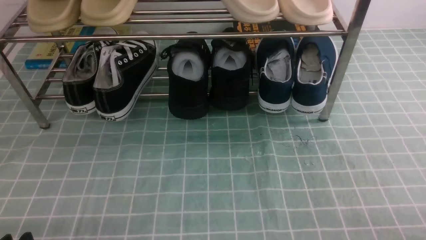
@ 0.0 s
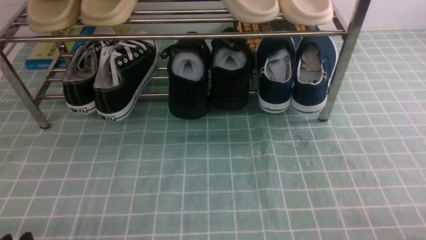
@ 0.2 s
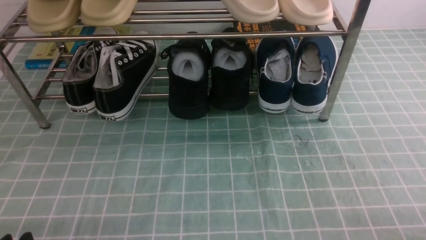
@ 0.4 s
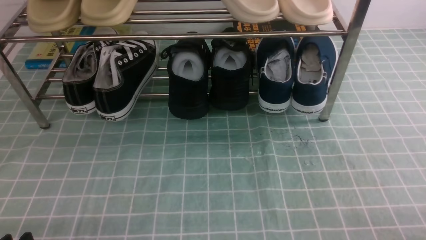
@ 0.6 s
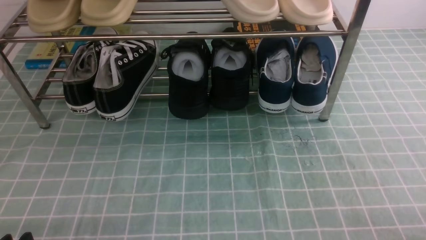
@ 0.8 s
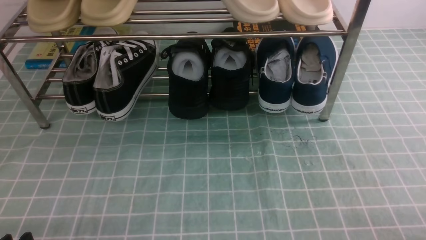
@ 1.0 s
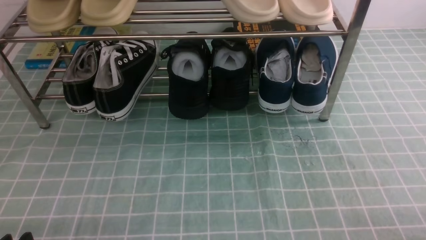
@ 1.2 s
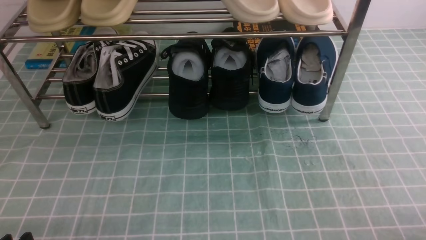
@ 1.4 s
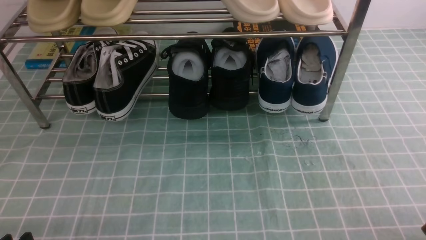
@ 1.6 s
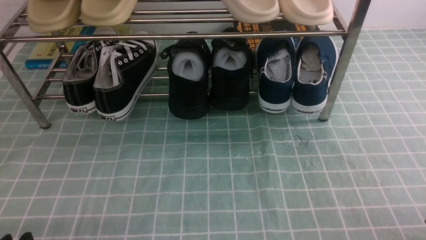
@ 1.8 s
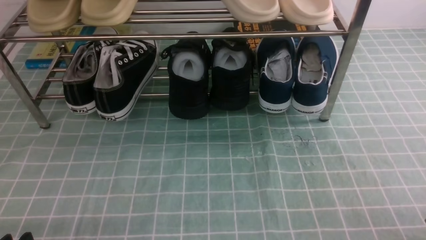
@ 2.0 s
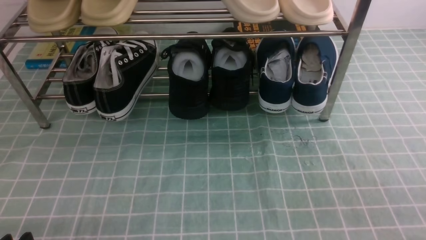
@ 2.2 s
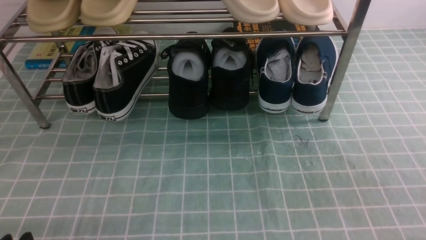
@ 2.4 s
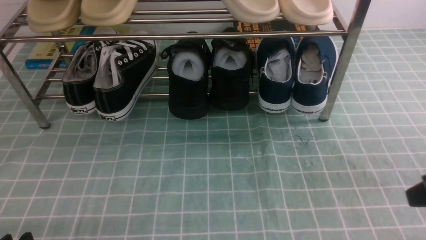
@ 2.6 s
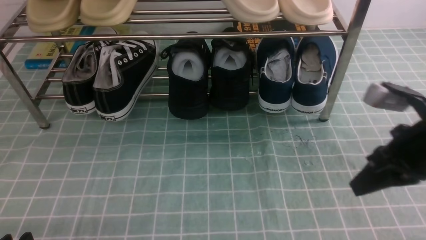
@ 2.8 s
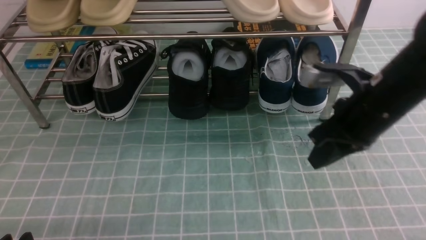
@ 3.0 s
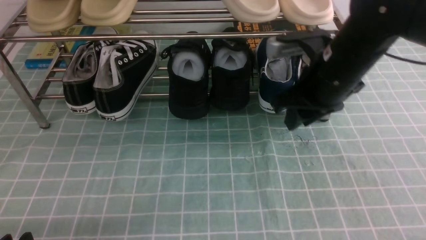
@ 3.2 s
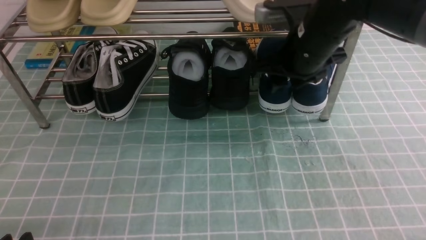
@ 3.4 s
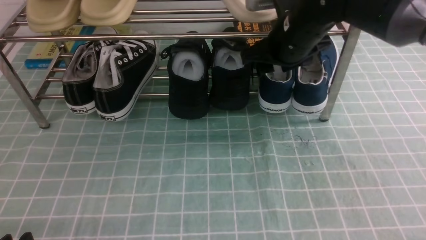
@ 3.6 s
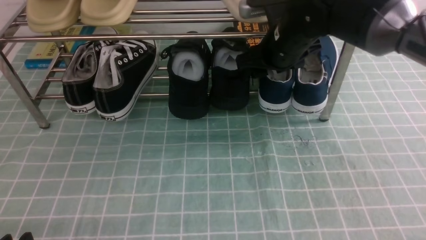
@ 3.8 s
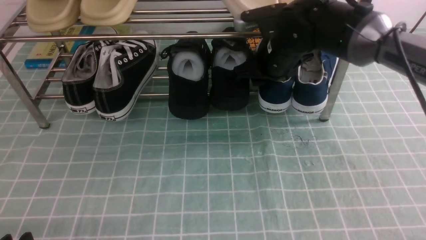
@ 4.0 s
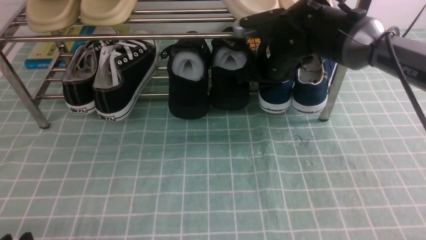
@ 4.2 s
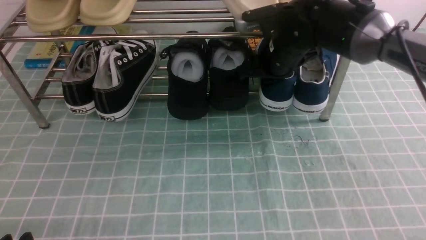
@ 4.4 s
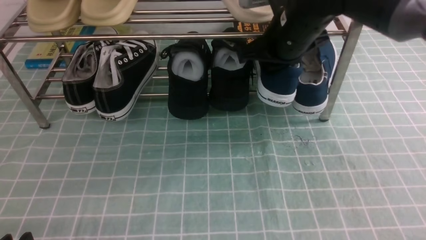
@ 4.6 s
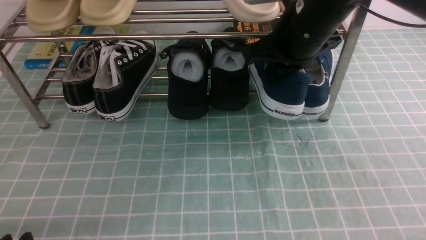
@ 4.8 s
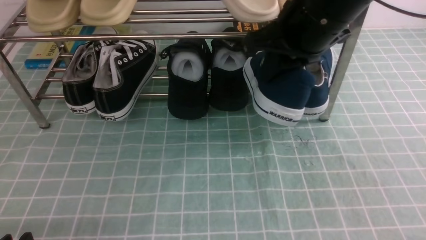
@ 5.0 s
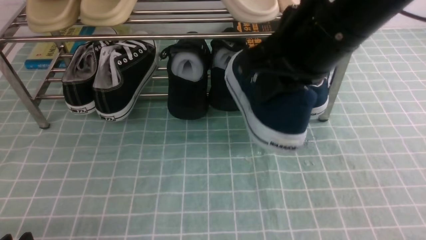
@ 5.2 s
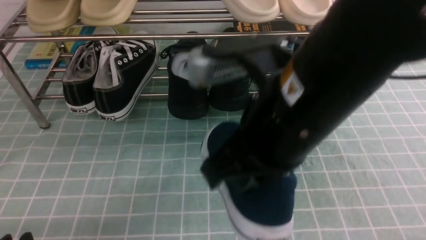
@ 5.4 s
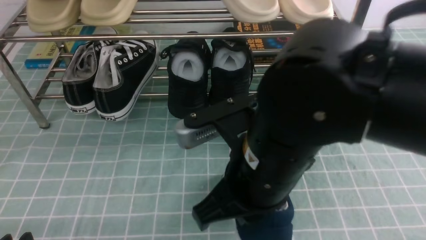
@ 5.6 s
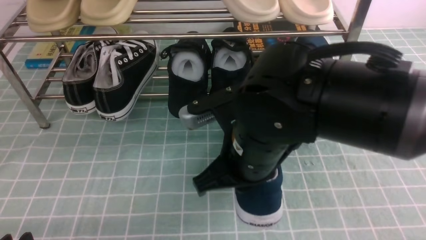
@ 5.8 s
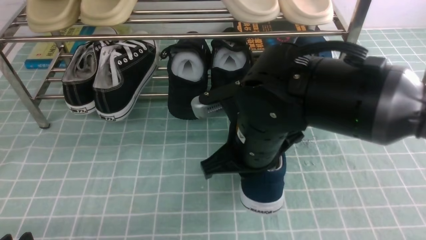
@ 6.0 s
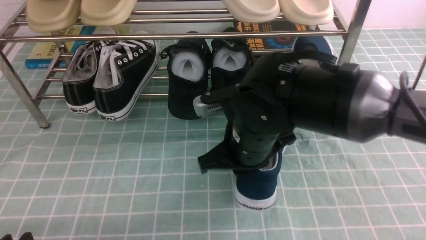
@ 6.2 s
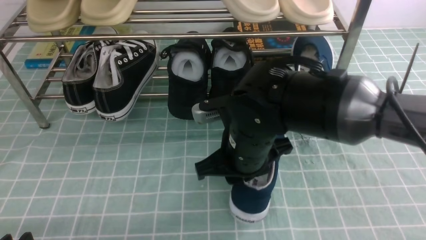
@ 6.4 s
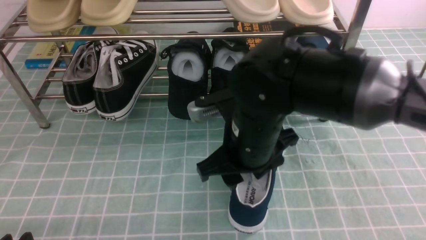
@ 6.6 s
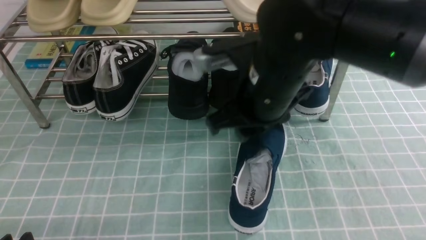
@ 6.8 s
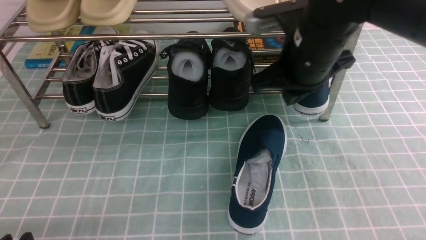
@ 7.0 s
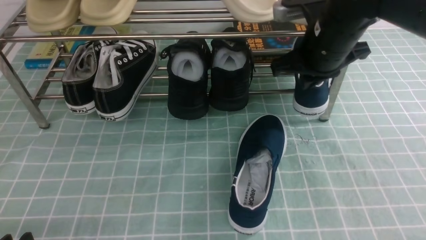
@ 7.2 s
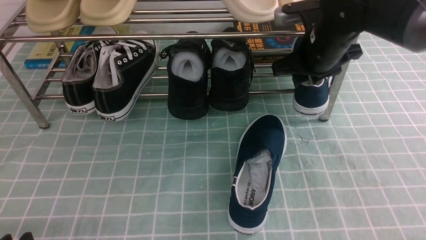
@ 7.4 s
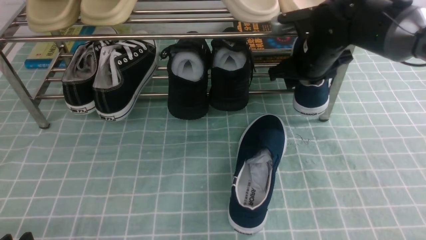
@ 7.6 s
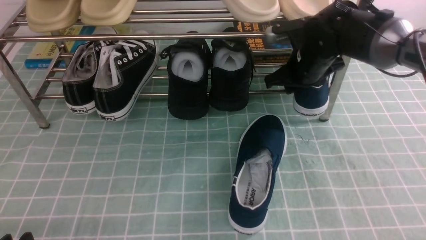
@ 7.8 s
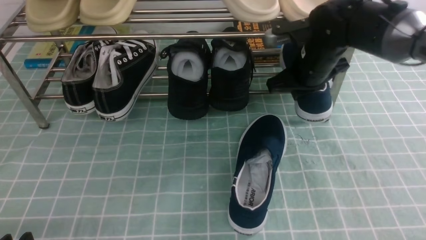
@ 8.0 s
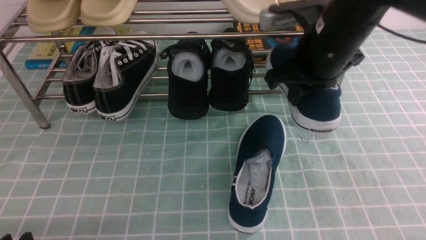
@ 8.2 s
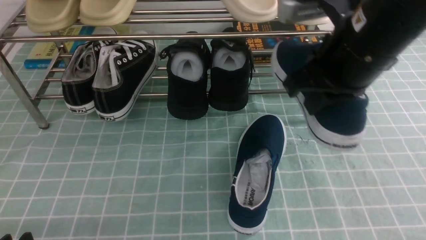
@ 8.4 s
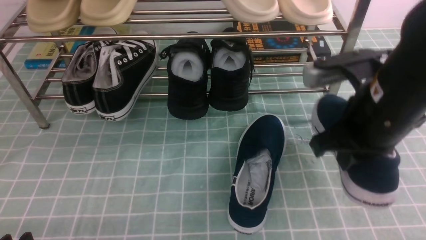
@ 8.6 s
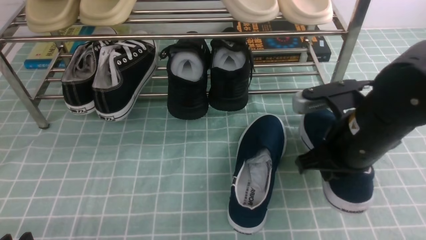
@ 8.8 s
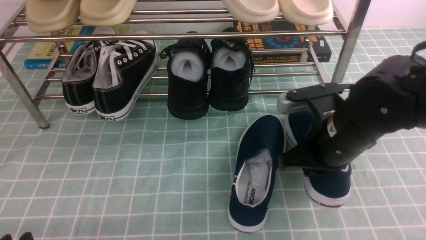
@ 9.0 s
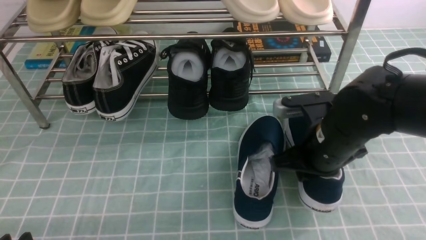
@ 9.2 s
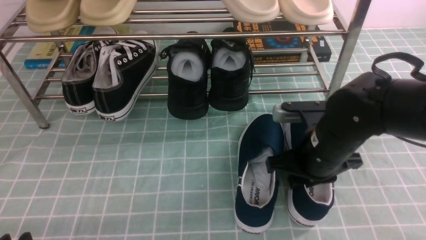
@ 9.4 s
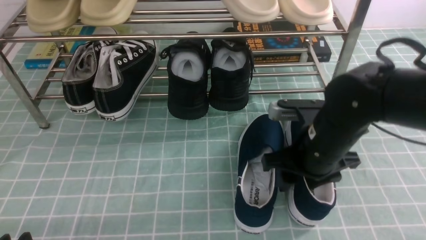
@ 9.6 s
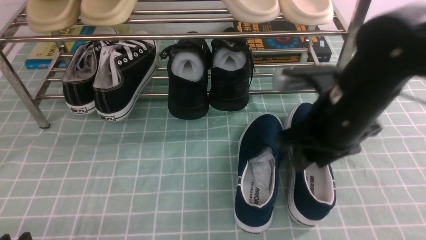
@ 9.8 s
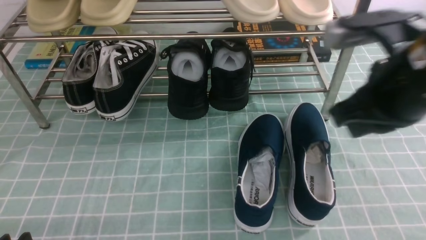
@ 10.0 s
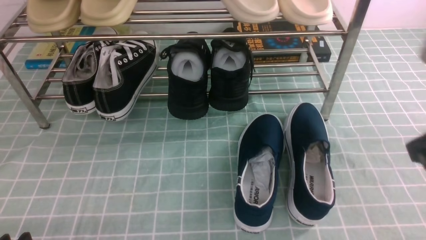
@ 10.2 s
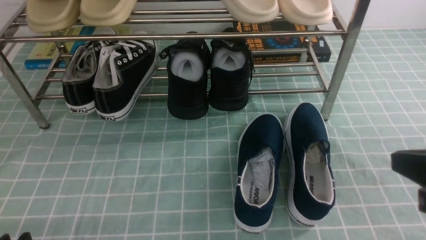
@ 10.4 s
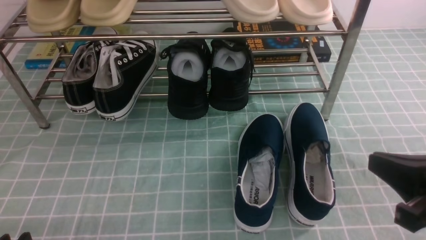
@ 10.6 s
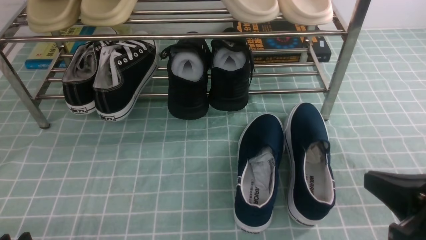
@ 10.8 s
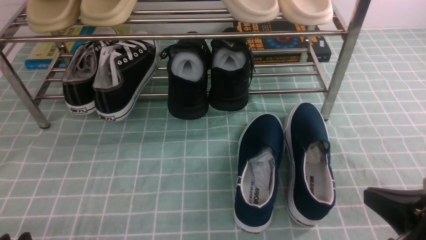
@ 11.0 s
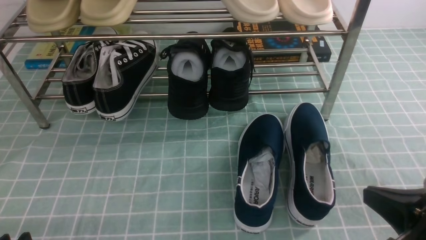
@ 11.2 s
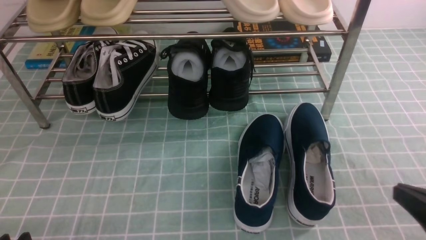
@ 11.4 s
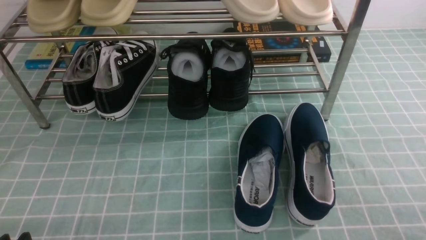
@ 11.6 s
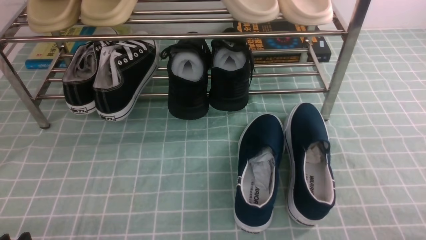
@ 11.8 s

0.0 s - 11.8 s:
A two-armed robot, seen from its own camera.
Step, 0.0 s - 4.2 s: use the right arm to clamp a shoe on the right side of the shoe rack.
Step, 4.4 s - 6.6 s: use the right arm to take out the clamped shoe from the shoe rack and put it down.
Step, 6.8 s - 7.8 s: use the right arm to clamp a shoe on the right side of the shoe rack.
Step, 8.0 s - 9.6 s: use the right arm to take out the clamped shoe from the shoe rack and put it down.
1.4 s - 3.0 s: The right gripper shifts roughly 30 cm forward, to the left and upward, and closes and opens again.
3.0 s - 4.4 s: The right gripper heads forward and to the left, covering roughly 15 cm, and opens, then closes once more.
4.4 s - 6.0 s: The right gripper is displaced backward and to the left by roughly 15 cm.
6.0 s - 7.4 s: The right gripper is displaced forward and to the right by some 20 cm, and opens.
7.4 s - 8.8 s: The right gripper heads backward, covering about 15 cm, and closes its fingers.
8.8 s - 10.4 s: The right gripper goes up and down, approximately 15 cm each way, reversing 2 times, and opens, then closes once more.
10.4 s - 11.8 s: The right gripper heads downward, to the right and backward, covering about 15 cm.

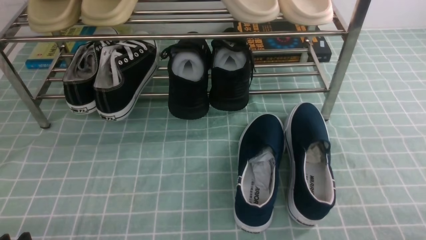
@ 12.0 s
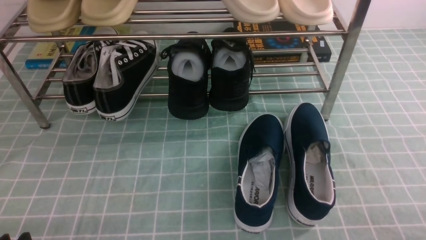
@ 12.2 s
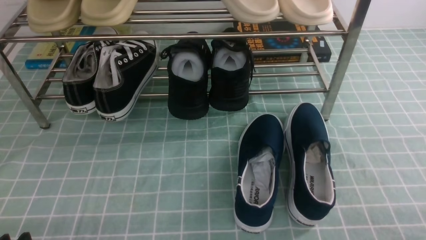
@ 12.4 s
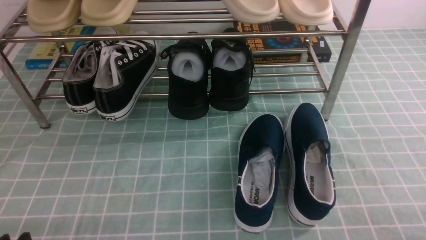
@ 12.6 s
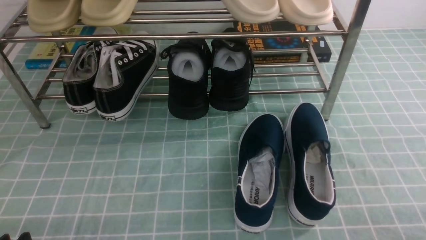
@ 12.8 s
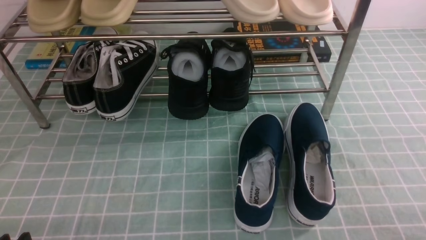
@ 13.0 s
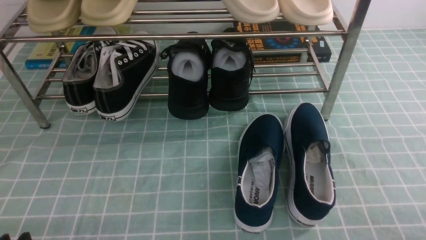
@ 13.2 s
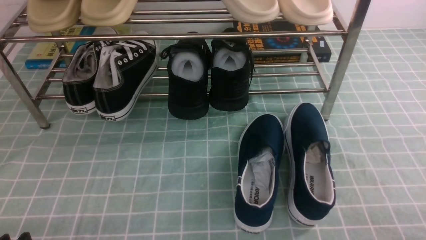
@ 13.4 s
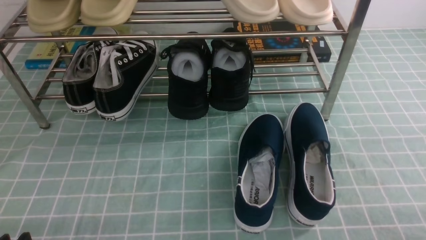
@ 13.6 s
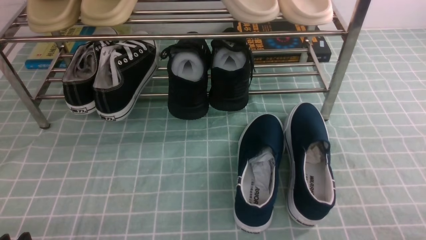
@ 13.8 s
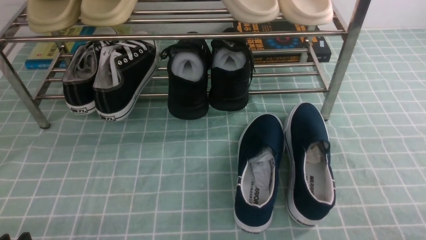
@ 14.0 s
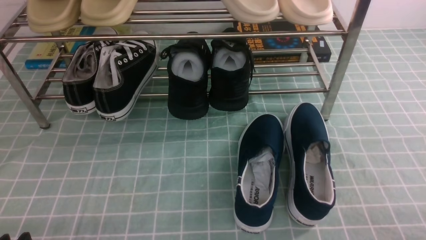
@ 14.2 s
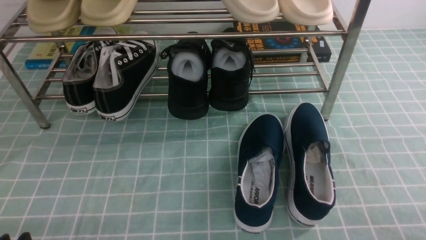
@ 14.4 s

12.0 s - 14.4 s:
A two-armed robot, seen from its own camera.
12.0 s - 14.4 s: Neither gripper changes place.

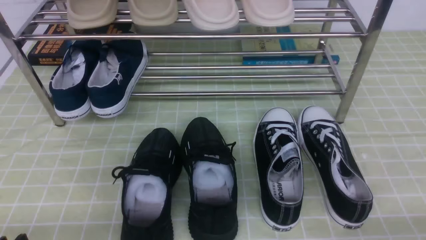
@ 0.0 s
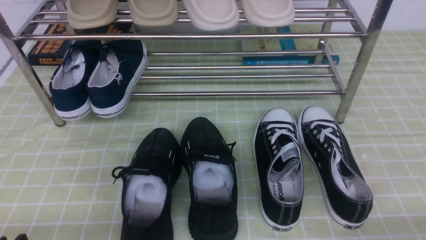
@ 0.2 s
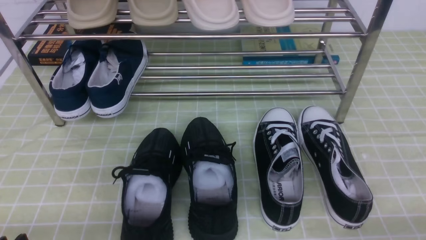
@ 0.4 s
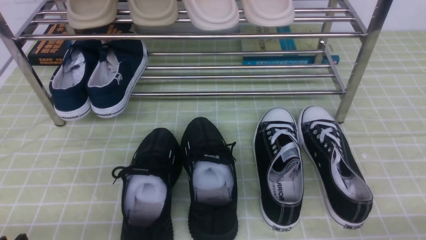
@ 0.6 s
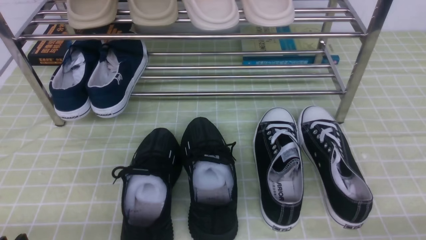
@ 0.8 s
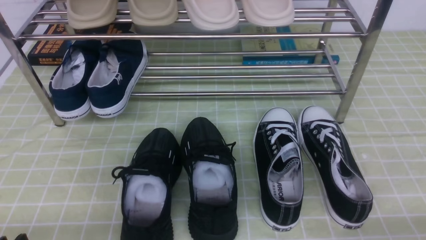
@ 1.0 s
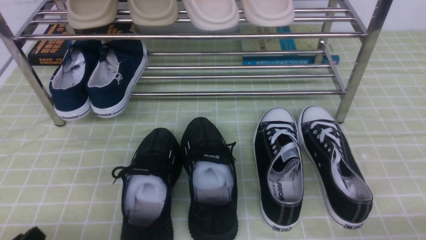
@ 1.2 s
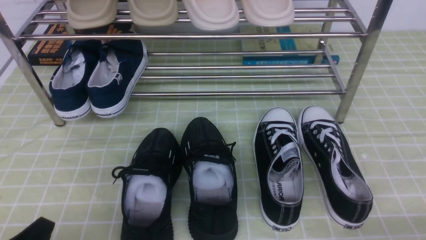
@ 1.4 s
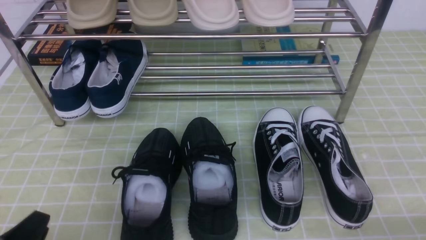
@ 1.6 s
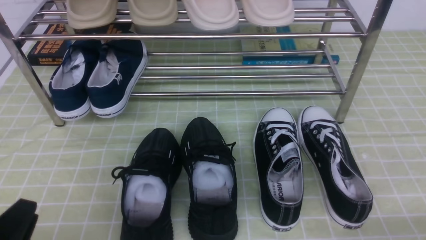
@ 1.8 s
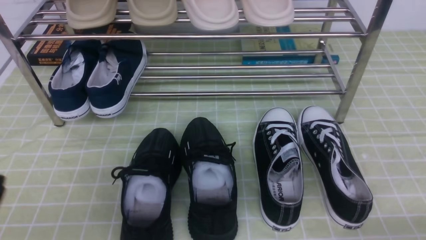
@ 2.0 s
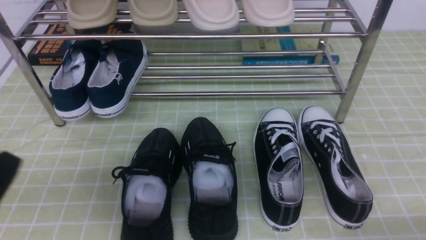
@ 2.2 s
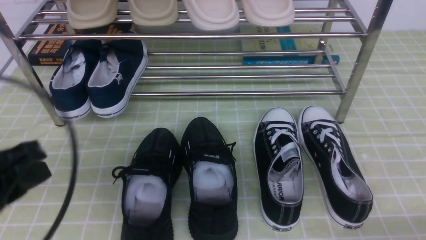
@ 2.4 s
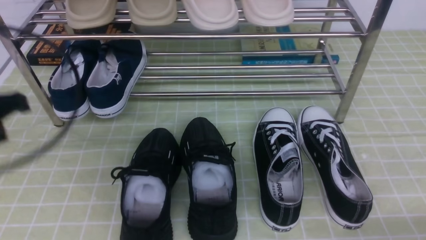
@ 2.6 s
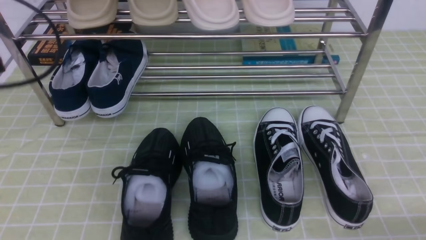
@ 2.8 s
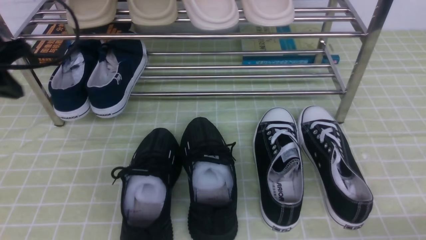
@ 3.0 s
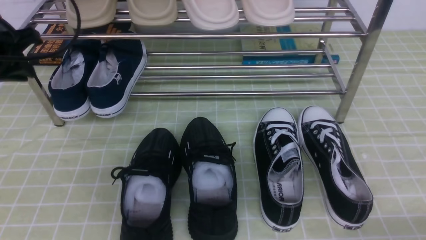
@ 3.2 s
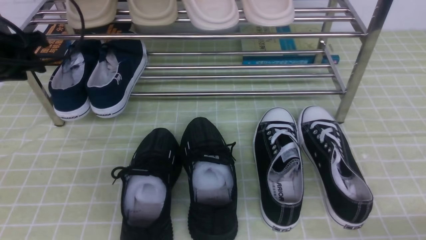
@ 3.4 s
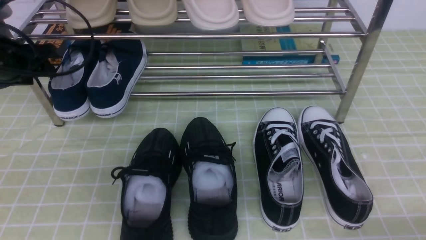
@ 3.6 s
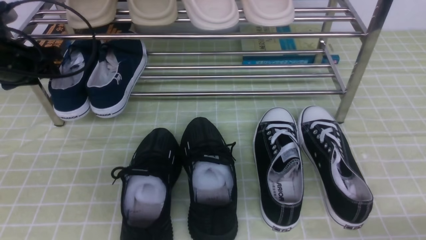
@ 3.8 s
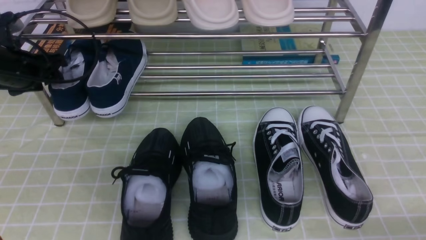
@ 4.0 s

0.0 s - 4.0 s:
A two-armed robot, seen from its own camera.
1.4 s - 2.6 s: The left gripper shifts about 25 cm upward and forward, and closes.
2.6 s - 4.0 s: The left gripper travels forward and downward by approximately 20 cm, and opens.
